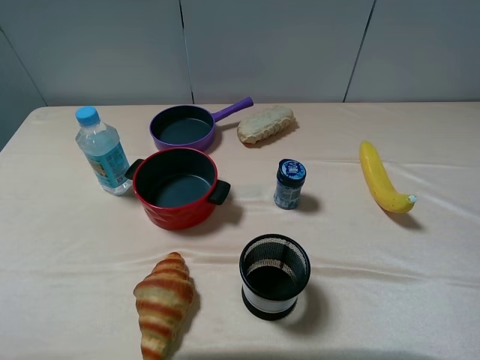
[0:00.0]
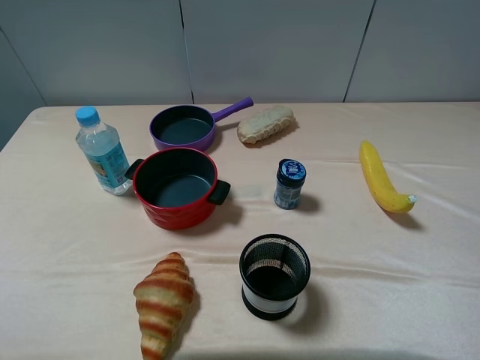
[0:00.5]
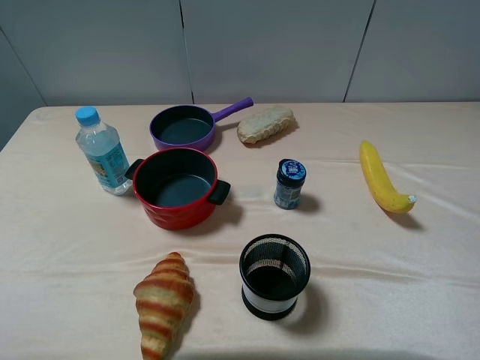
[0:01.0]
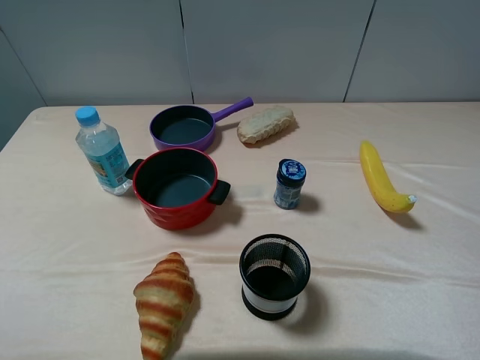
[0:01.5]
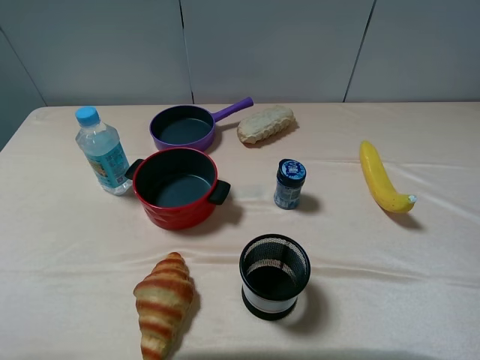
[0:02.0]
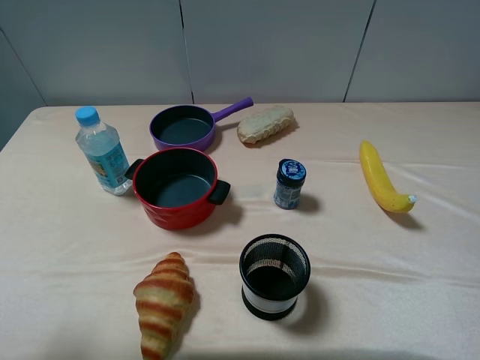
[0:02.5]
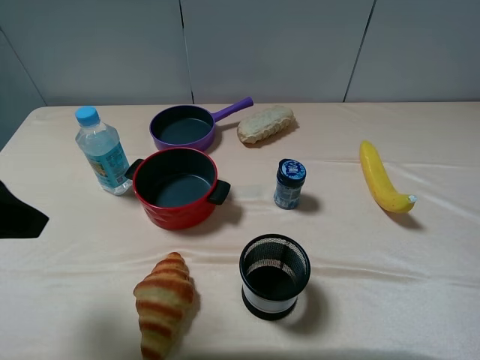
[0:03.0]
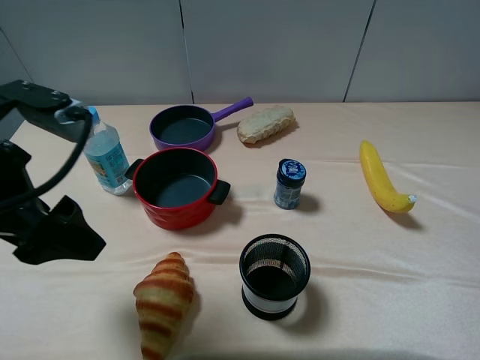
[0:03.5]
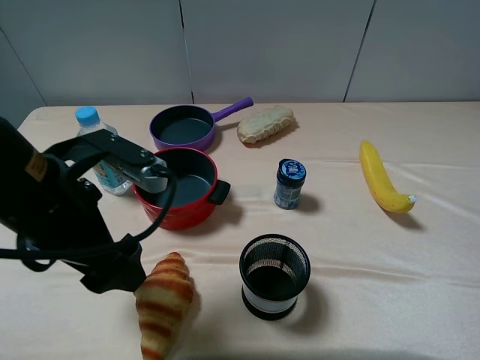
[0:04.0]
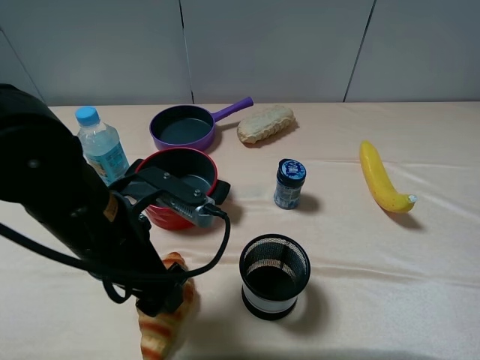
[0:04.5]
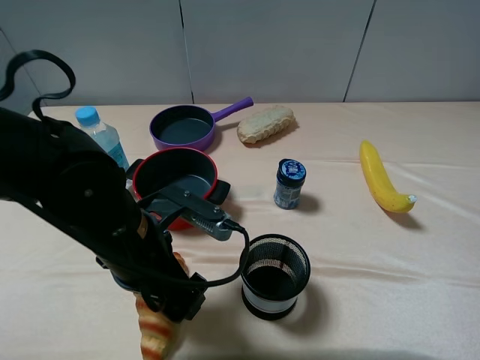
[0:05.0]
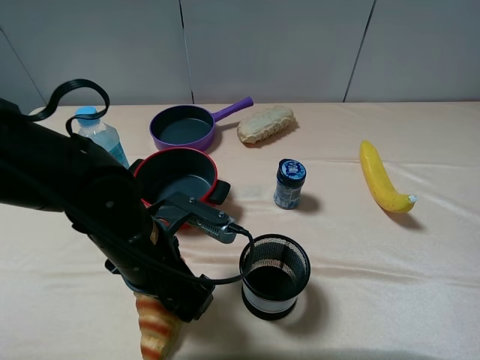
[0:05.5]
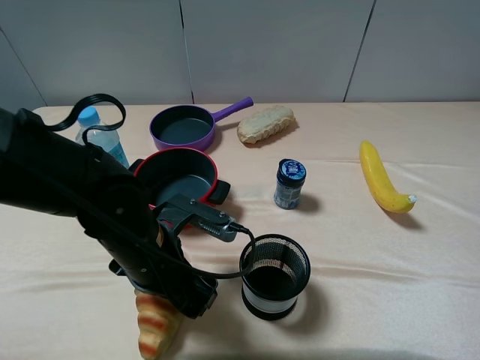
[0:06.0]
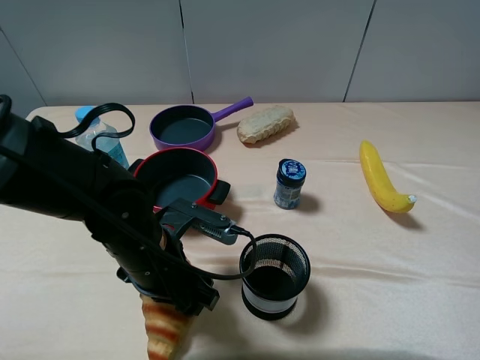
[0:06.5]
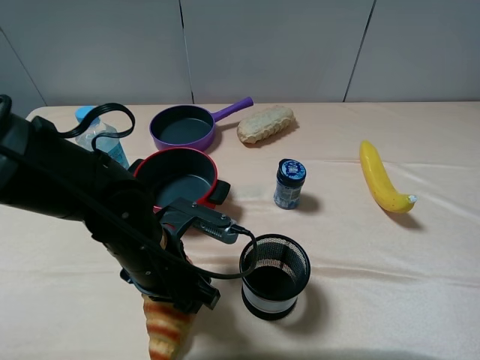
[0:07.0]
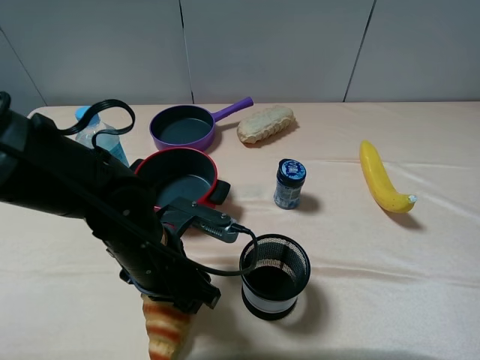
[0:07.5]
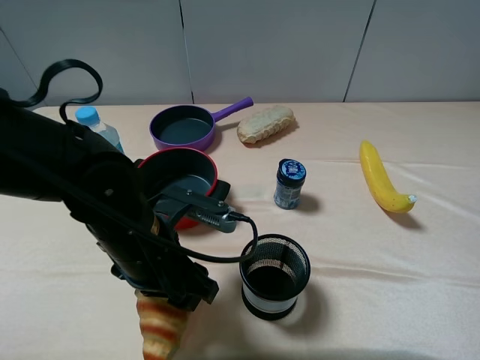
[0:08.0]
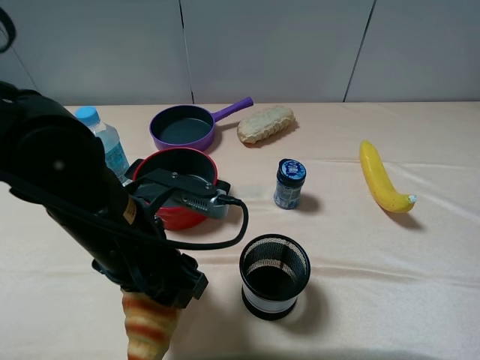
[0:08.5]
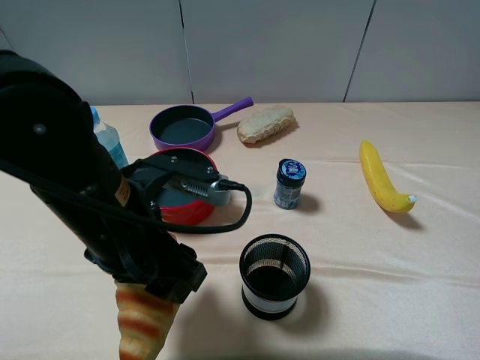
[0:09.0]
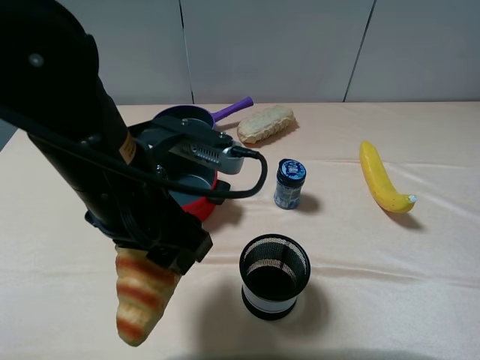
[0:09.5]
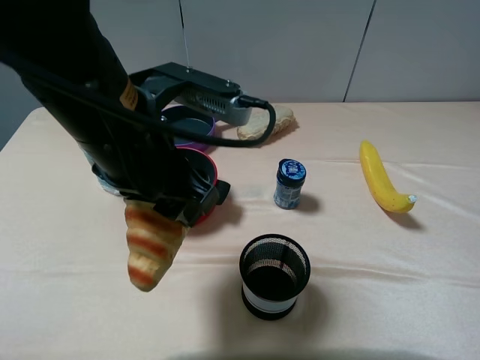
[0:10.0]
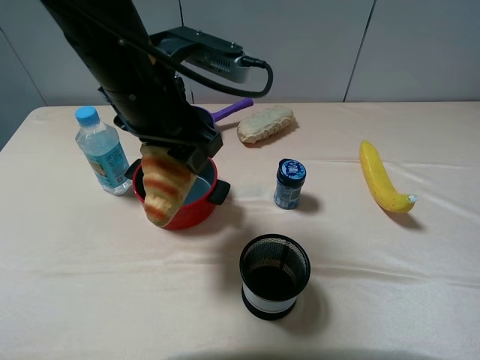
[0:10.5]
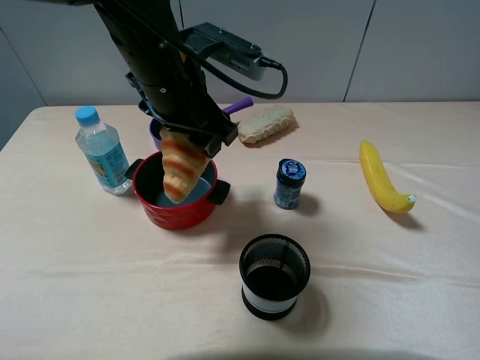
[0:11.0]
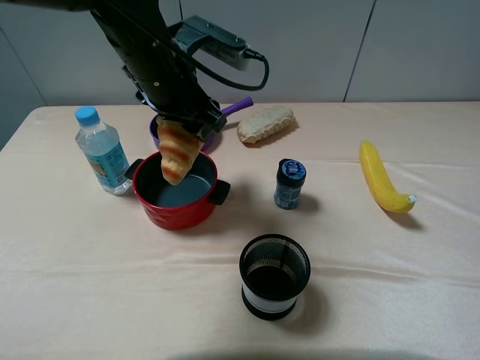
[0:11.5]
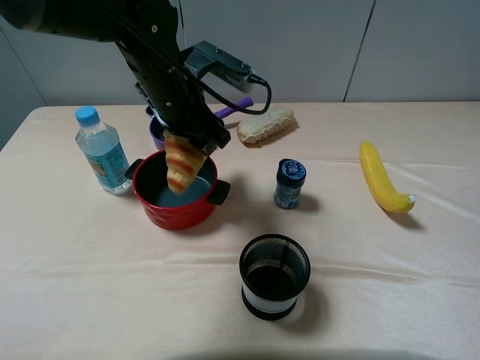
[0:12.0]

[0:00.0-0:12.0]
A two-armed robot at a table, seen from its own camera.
Task of the whole recording: pick up an item with a gripper and place it in a random container on the table.
Step, 0.0 to 6.5 s: Grasp the croissant with the left gripper.
2.0 to 4.0 s: The left gripper shifts about 20 cm to the right, forward and downward.
4.0 to 6.0 s: The left gripper moves downward and to the right, roughly 15 cm.
6.0 to 8.0 s: The left gripper closes its fingers.
8.0 to 10.0 s: The left gripper shifts roughly 15 cm upward.
10.0 to 12.0 s: The left gripper travels forward and downward by roughly 15 cm.

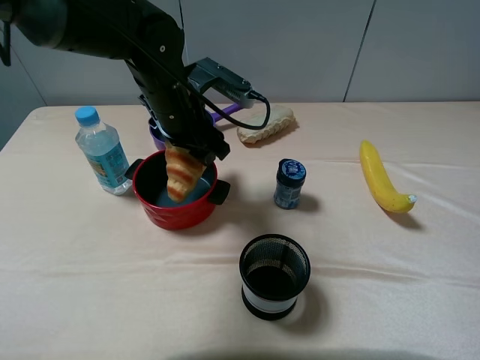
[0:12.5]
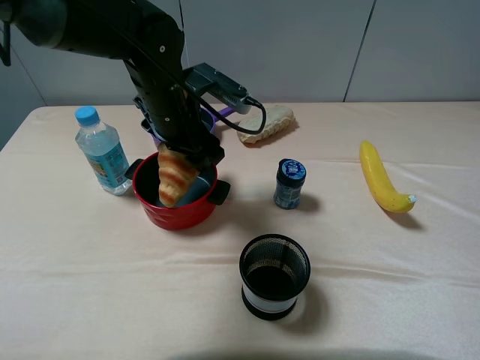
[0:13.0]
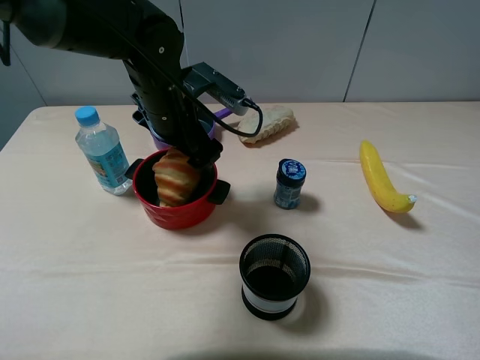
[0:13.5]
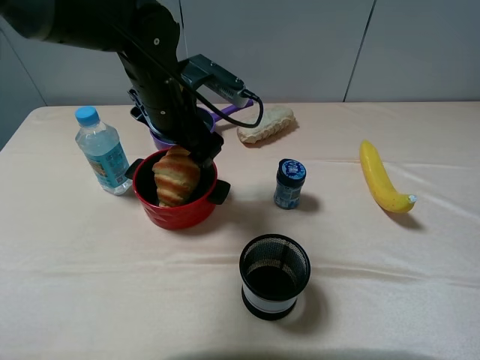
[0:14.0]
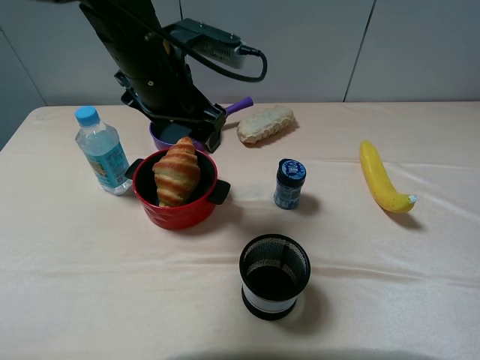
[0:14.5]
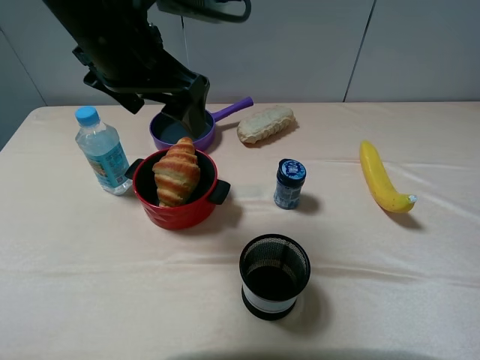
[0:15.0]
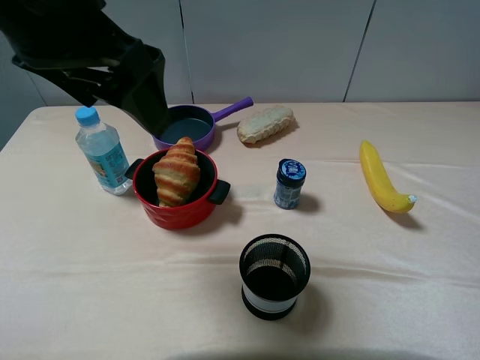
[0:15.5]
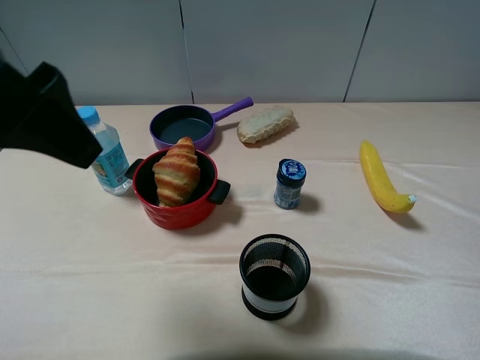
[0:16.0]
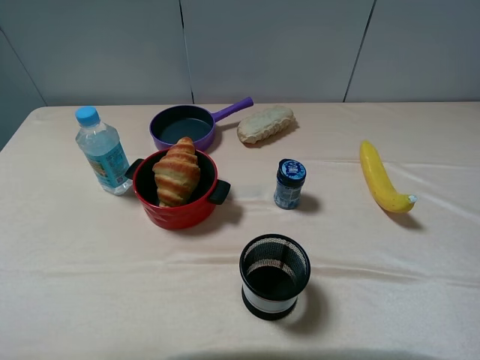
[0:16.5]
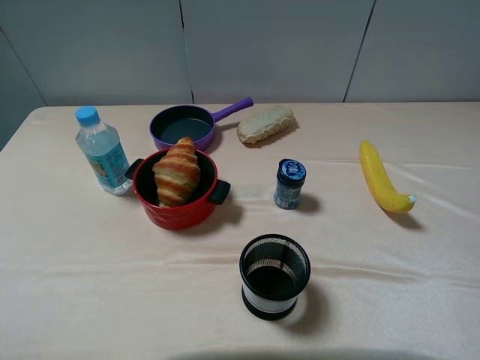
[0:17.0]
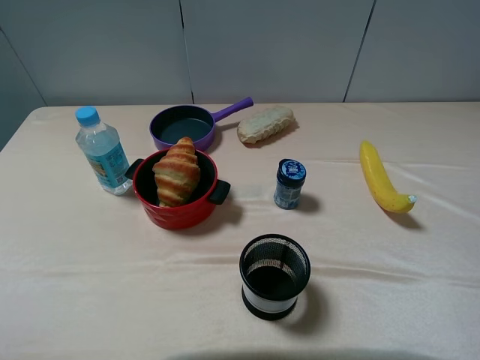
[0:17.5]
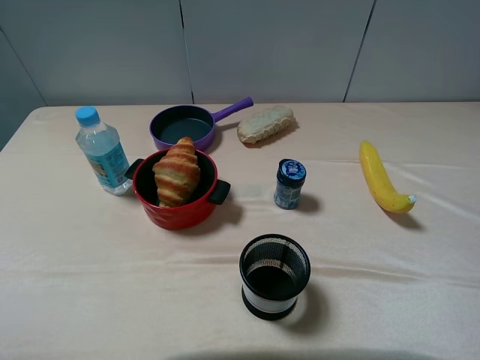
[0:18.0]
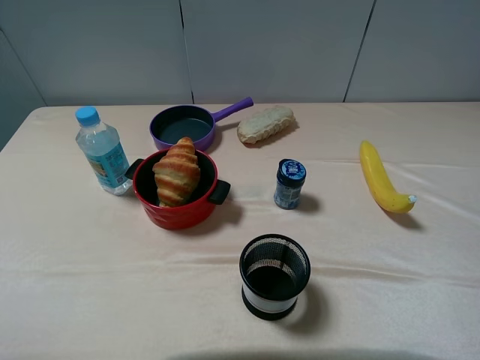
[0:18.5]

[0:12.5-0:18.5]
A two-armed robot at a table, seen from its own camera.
Task of the whole recording: pick up an item with a gripper and place it in a random container on the table.
12.5 to 14.5 s: The left gripper shifts about 5 cm upward, and opens its fingers.
14.5 to 16.5 s: The left gripper heads backward, to the left and upward, covering some 30 cm.

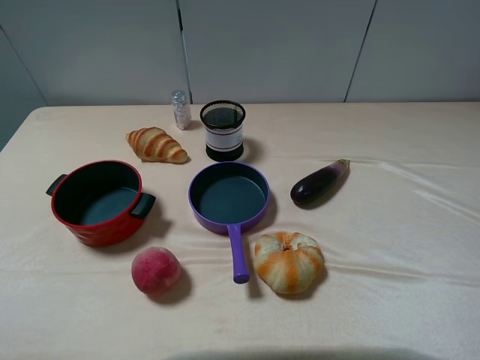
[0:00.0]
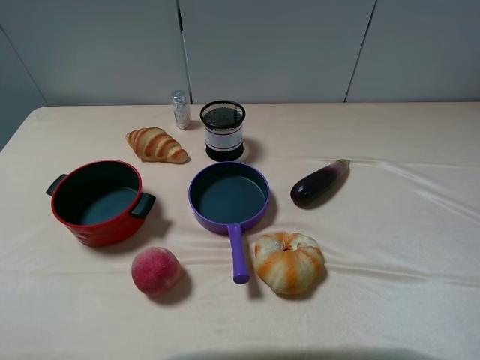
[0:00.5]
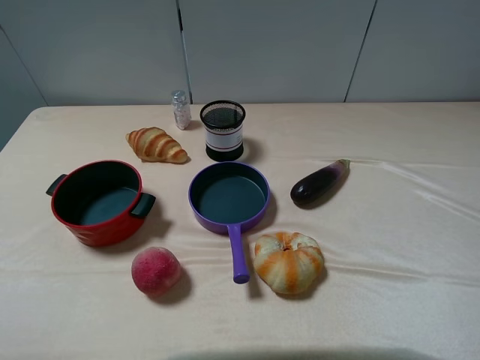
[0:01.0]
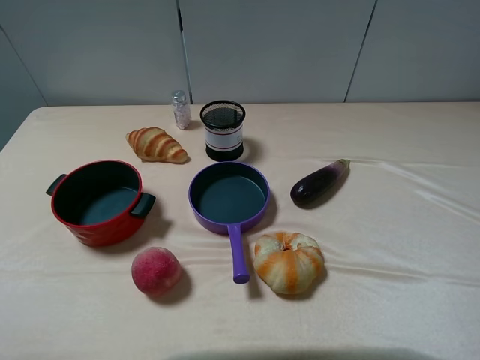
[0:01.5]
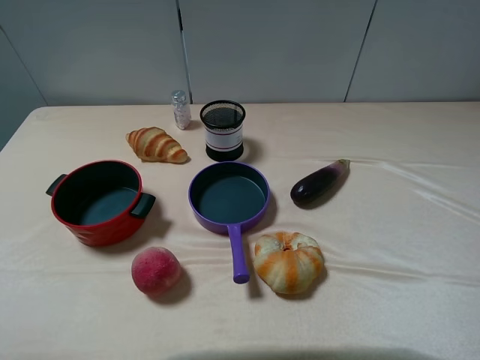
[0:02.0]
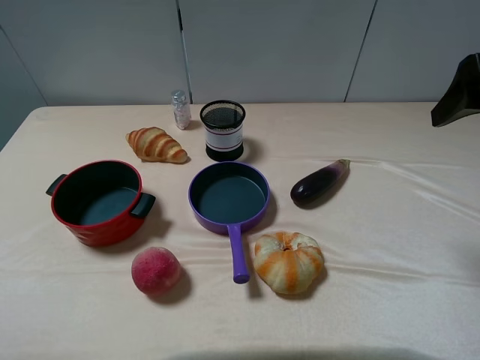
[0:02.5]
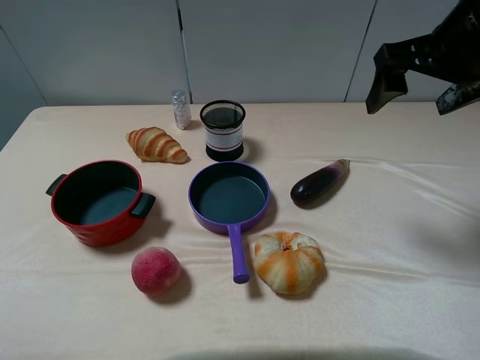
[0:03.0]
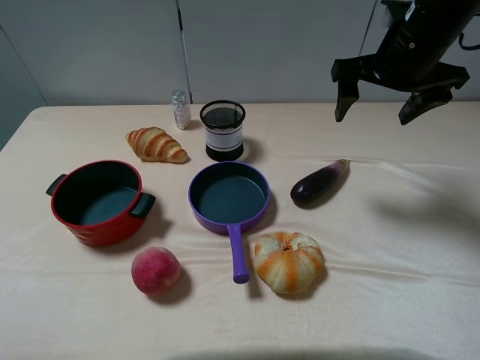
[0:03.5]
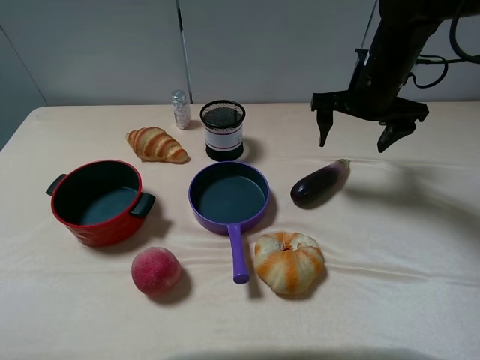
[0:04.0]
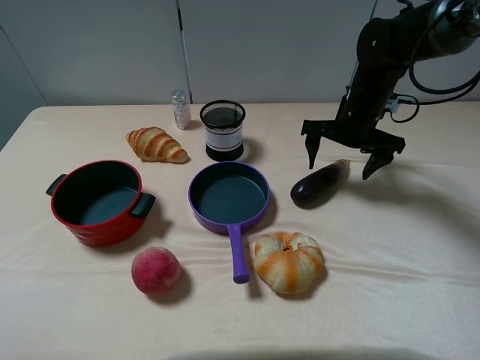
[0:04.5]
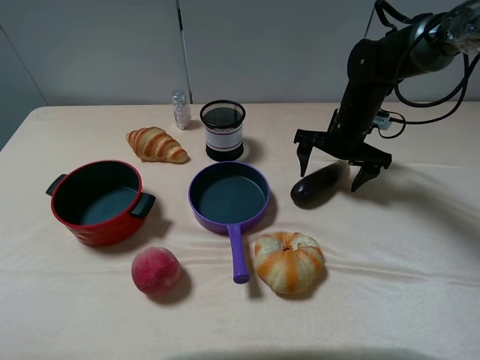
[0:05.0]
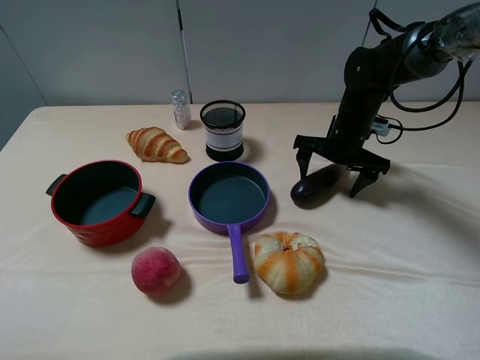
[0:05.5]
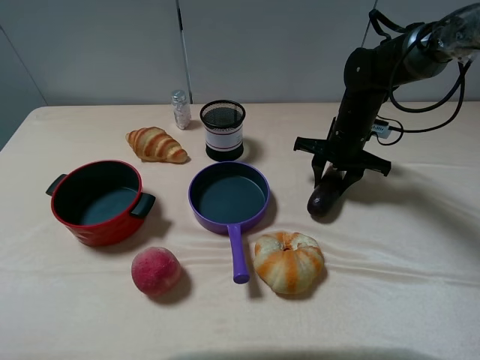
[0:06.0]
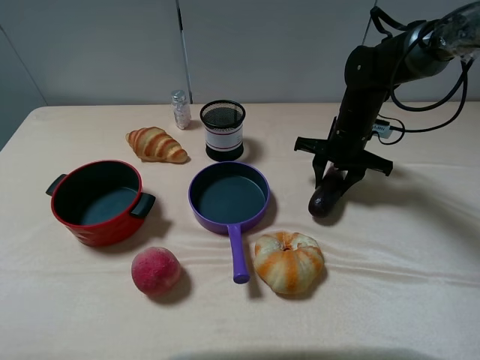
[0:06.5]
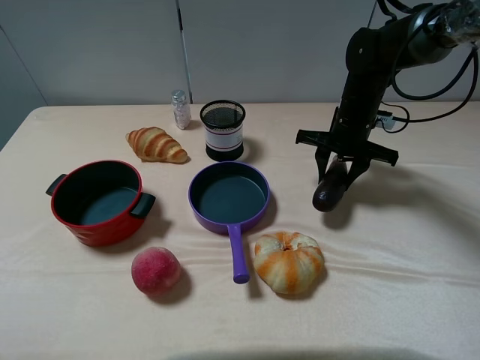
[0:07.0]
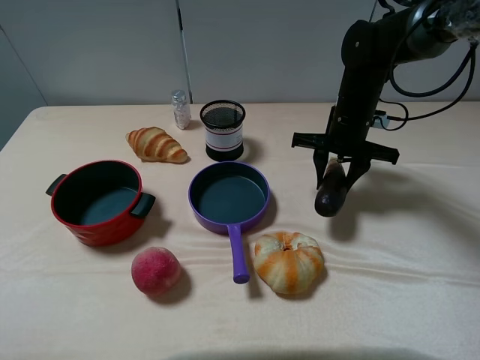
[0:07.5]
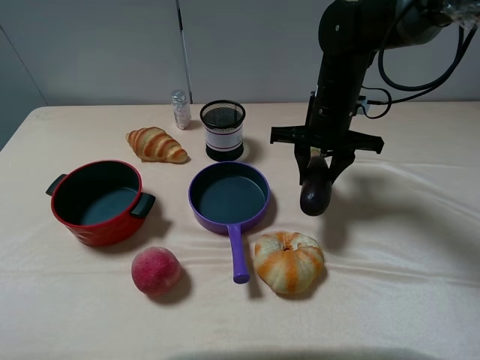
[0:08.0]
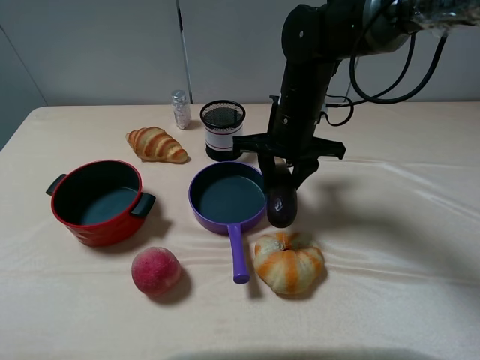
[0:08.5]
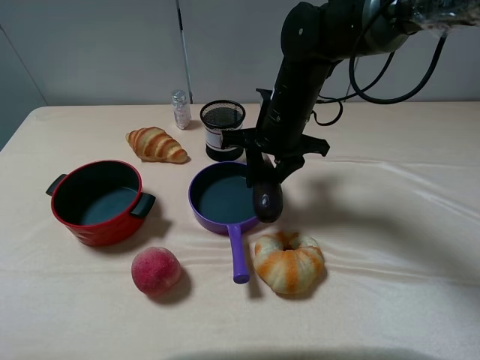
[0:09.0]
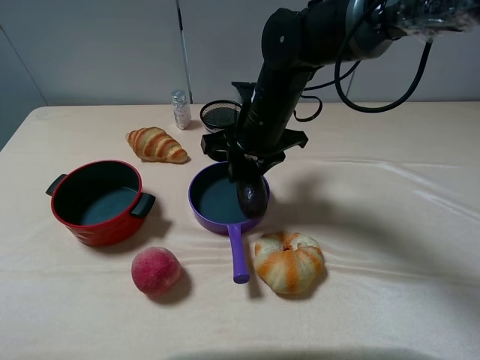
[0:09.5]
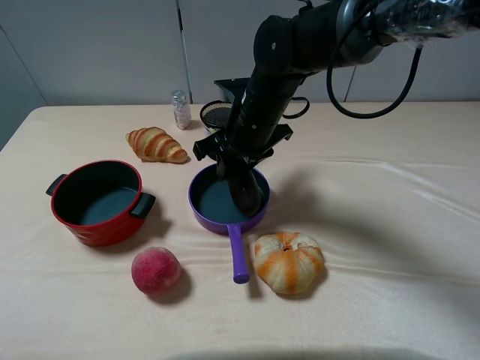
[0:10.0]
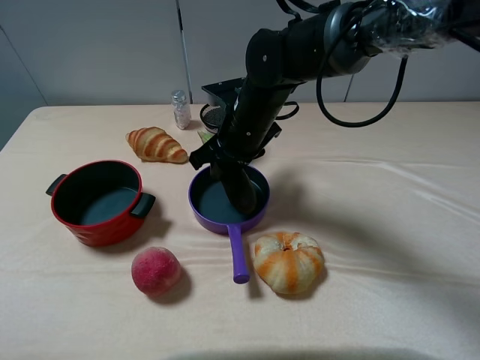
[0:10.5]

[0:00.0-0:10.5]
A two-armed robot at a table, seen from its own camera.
Task of the whole recording: pick up an item with a gripper and place it in a random container on the table.
Step, 0.0 to 6.0 s: Grasp the eggplant with the right gripper.
2.0 to 4.0 s: The right gripper travels forward, downward and to the left by roughly 25 cm.
4.0 to 6.5 s: The right gripper goes some 10 cm downward, and closes up.
6.5 to 8.5 s: The right gripper heads to the left, upward and backward, covering some 15 cm.
8.5 to 10.5 s: The right gripper goes about 5 cm to the left.
